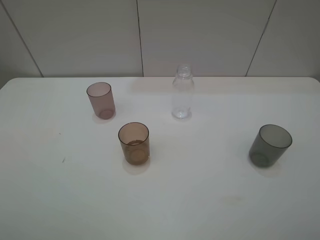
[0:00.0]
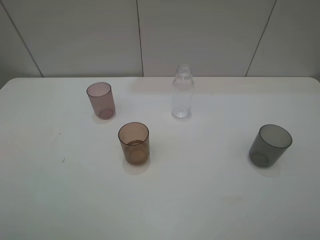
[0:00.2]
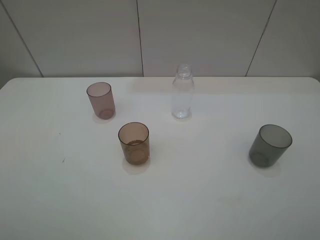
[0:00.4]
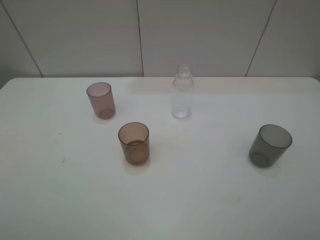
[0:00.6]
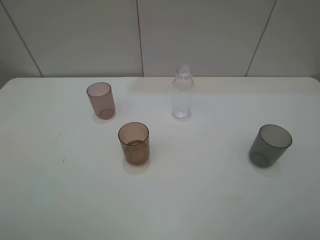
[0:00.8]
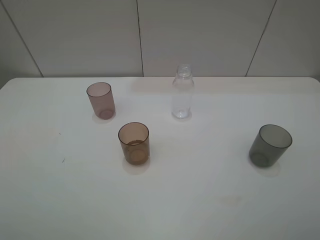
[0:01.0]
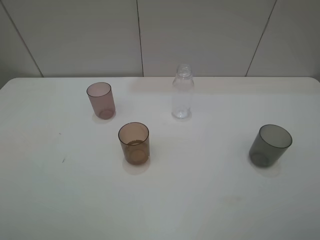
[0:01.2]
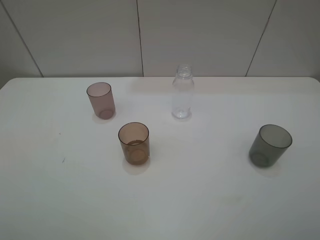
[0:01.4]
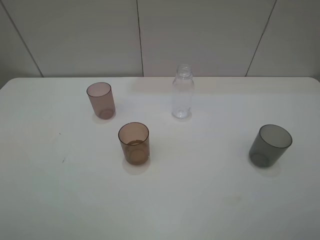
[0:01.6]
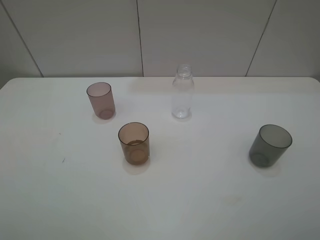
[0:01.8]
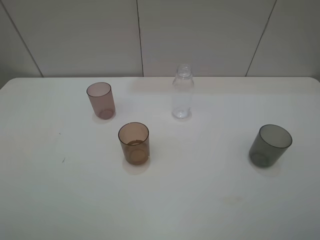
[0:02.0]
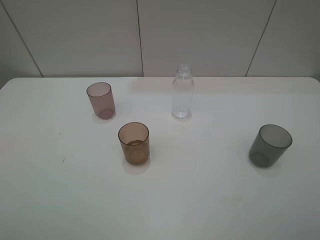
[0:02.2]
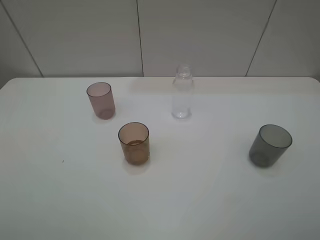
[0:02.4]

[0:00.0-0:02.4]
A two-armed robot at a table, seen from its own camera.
Task of the whole recording: pick up the bottle filled with water and pour water into the middle cup of the three cups.
0:01.2 to 0:02.4: The two grippers keep their place.
